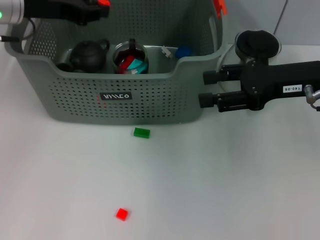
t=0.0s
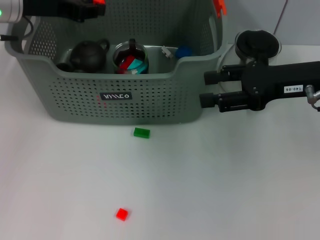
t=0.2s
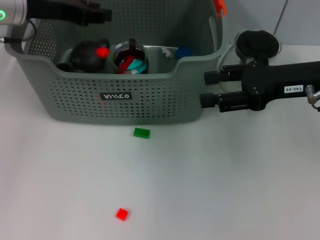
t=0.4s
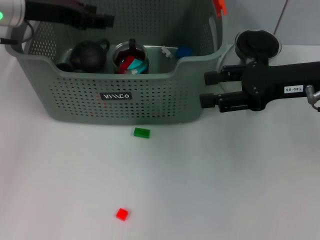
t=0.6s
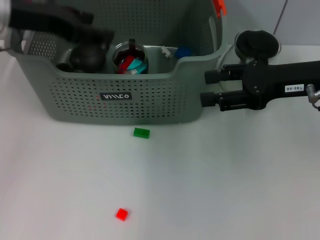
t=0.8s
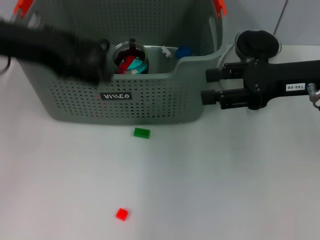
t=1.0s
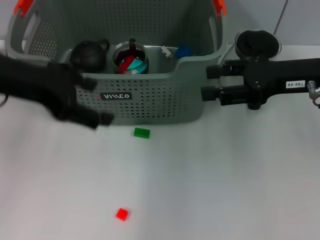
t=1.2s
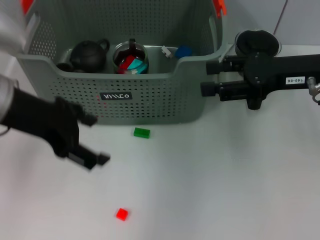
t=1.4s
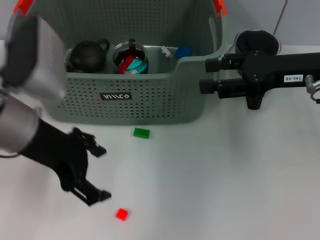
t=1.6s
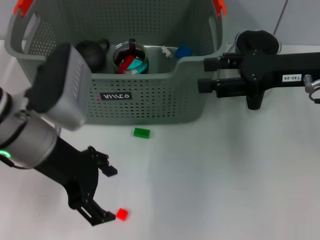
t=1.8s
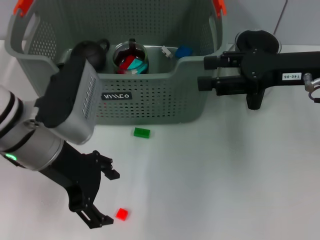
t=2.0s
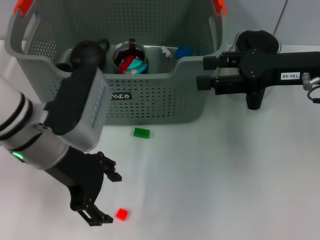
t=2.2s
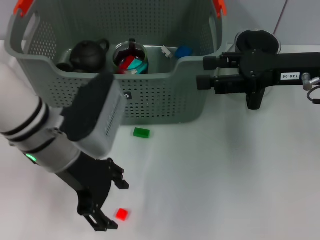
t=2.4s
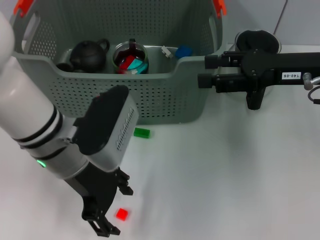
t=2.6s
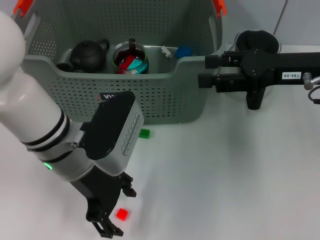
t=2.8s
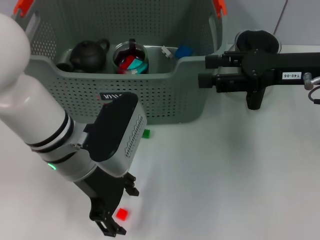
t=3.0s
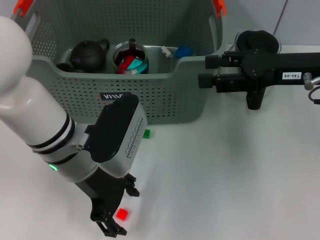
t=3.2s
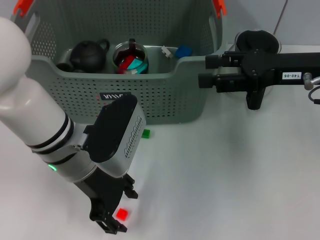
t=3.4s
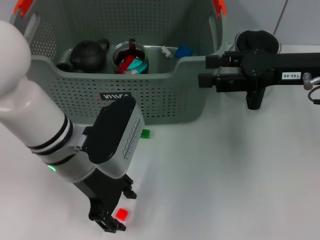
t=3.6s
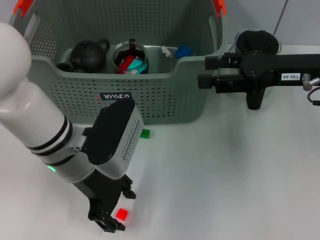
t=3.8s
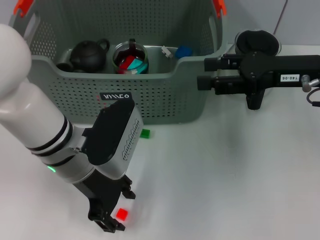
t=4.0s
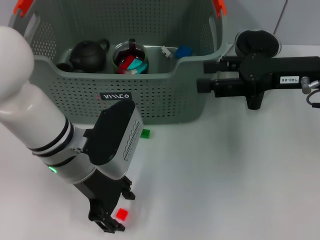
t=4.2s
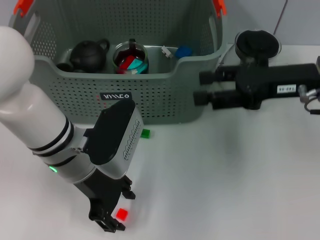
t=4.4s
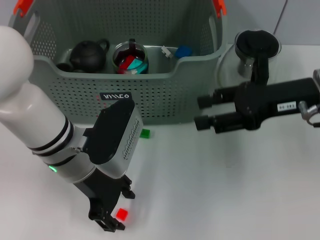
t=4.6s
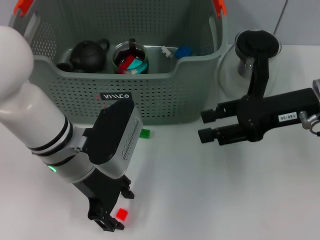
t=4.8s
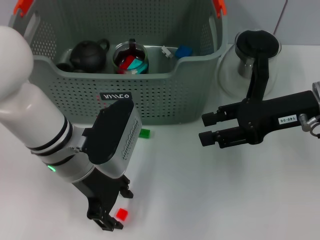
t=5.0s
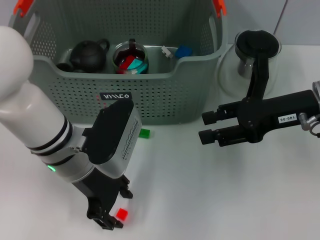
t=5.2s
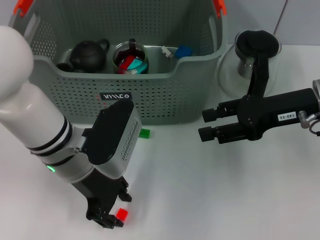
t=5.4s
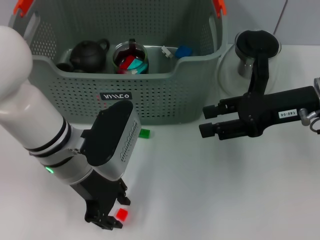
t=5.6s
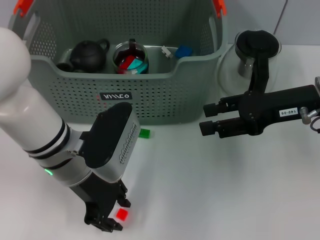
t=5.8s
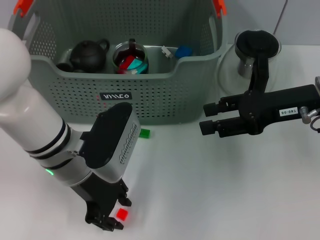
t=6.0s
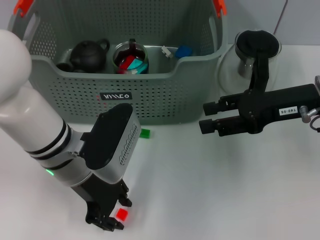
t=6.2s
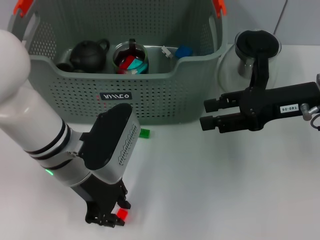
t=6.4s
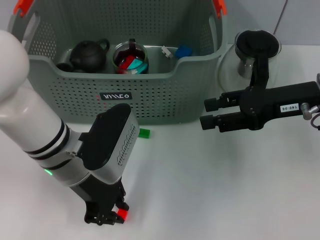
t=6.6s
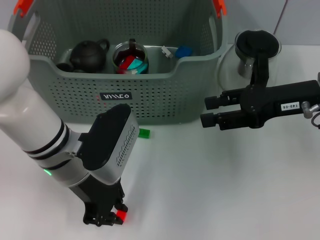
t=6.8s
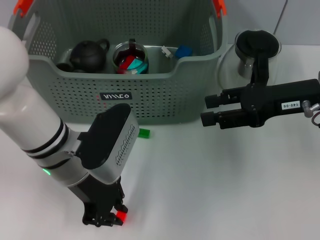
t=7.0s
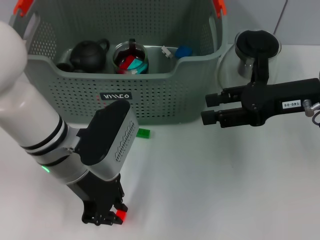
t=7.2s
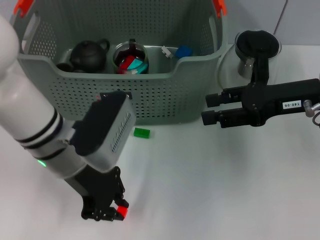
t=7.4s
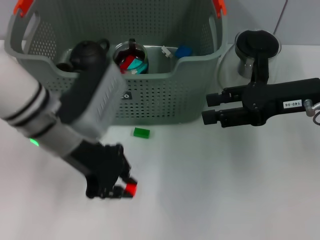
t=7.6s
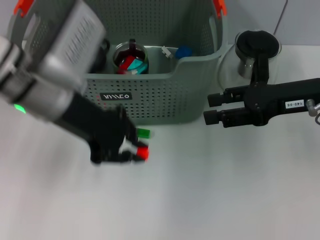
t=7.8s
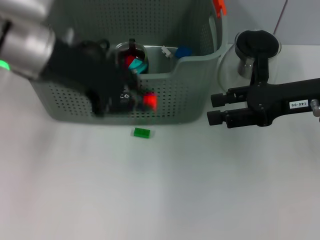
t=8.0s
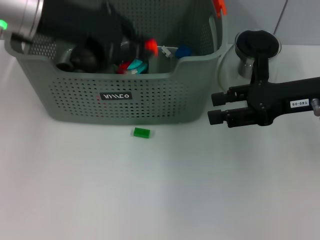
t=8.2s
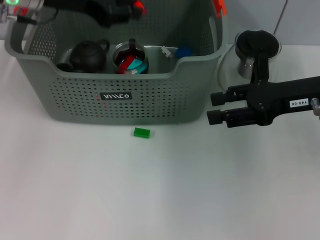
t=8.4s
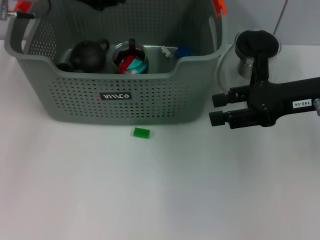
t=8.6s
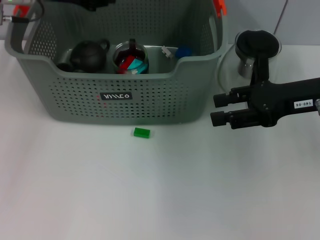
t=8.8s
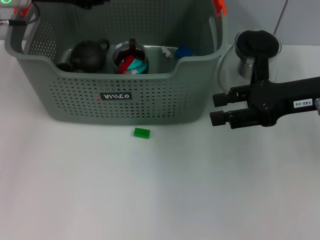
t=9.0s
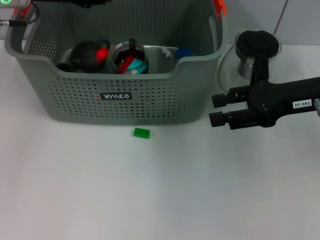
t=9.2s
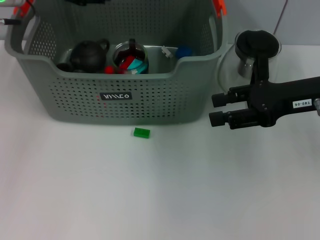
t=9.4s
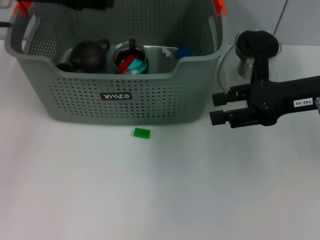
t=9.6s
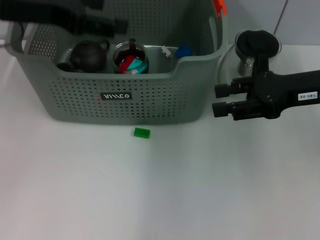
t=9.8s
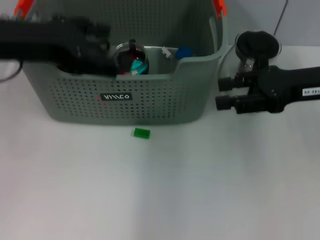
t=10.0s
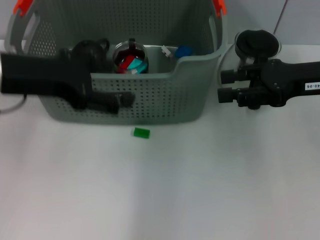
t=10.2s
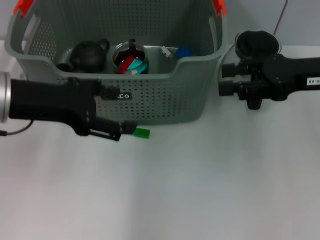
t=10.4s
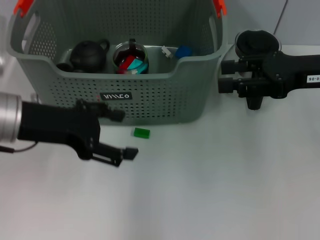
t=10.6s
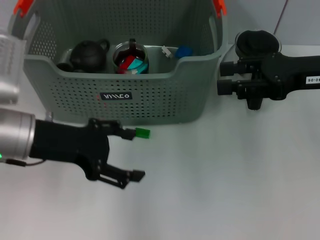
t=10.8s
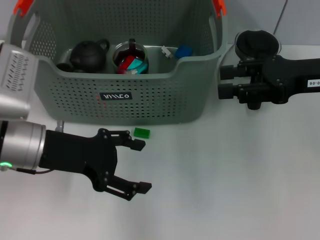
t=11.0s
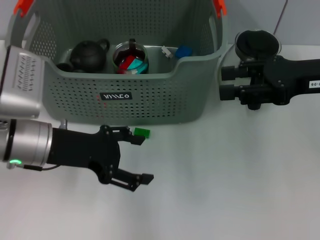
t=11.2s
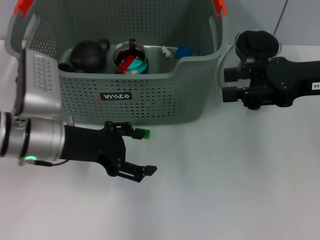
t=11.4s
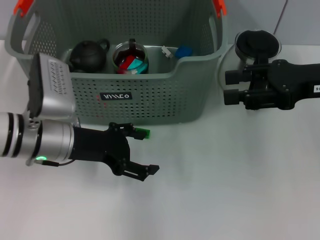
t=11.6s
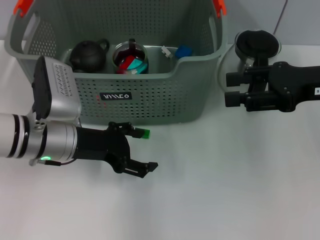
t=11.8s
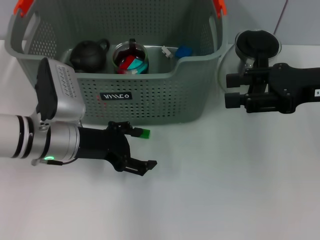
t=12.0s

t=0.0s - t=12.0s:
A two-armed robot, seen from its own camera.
Task of the whole recording: pick up the teacup on the table and place it into the storage bin, pick up the block on the table and place it into the storage bin.
Step, t=0.8s - t=7.2s: Grasp the orange block with left gripper.
Step, t=7.6s - t=9.6s: Place the orange block in the storage box with left gripper.
t=0.0s - t=1.6s: The left gripper moves backward, approximately 15 cm, and opens its fingers.
t=1.6s - t=3.0s: The left gripper heads downward and to the right, covering approximately 10 cm.
t=3.0s - t=6.0s: The grippers make only small movements.
t=6.0s - t=7.6s: The left gripper ends up about 5 cm from where it was.
t=7.6s - t=9.0s: The left gripper moves forward, to the left and upward, some 15 cm.
t=9.0s - t=10.4s: The left gripper is displaced backward by approximately 15 cm, and opens up.
t=10.4s - t=12.0s: The left gripper is displaced downward by approximately 10 cm.

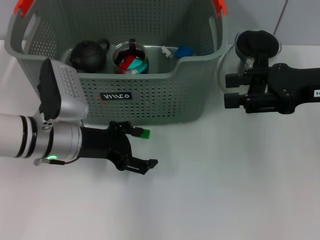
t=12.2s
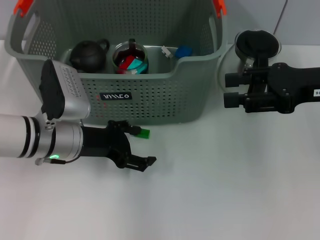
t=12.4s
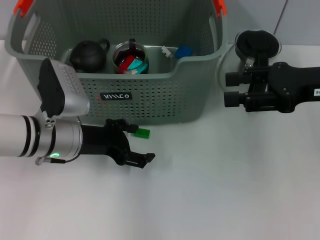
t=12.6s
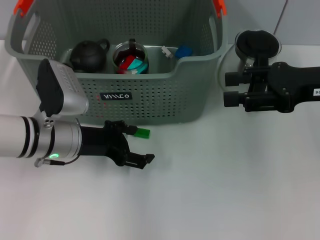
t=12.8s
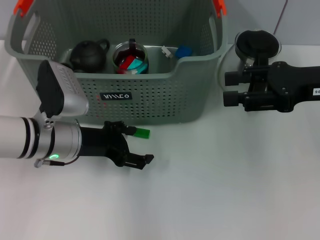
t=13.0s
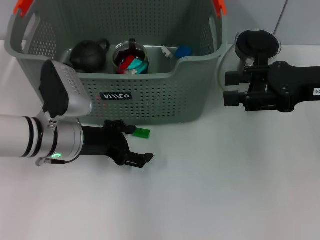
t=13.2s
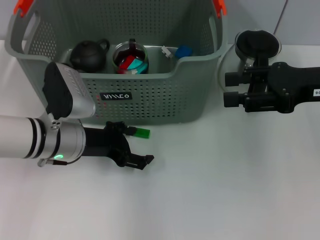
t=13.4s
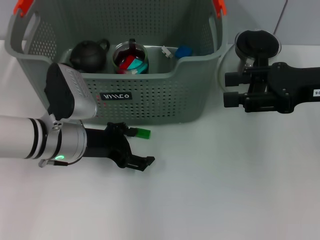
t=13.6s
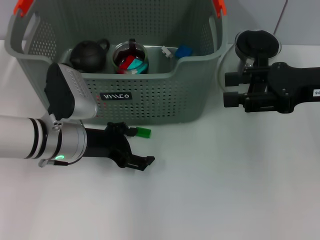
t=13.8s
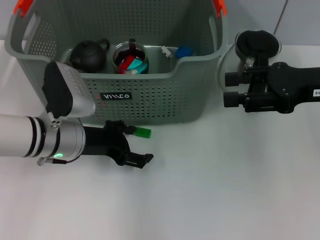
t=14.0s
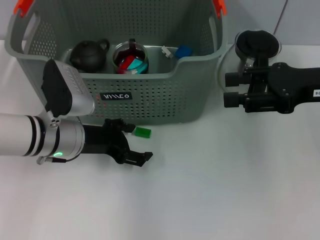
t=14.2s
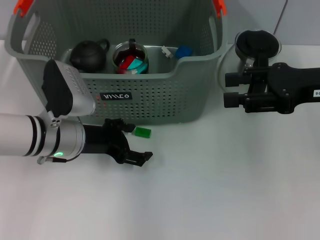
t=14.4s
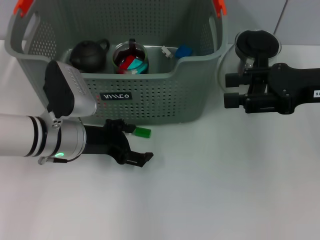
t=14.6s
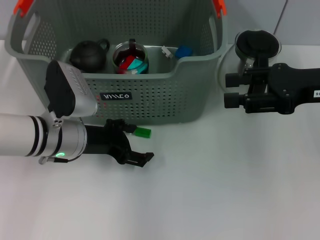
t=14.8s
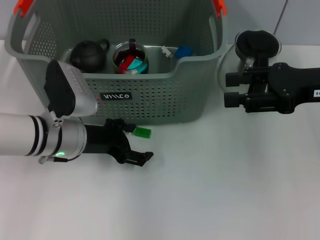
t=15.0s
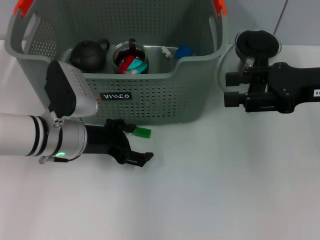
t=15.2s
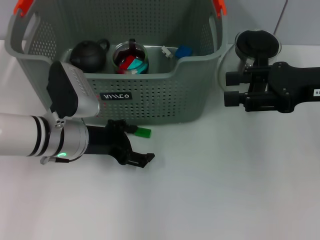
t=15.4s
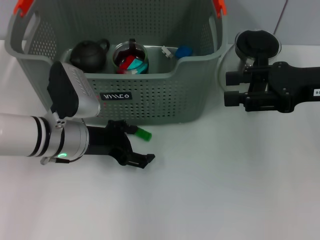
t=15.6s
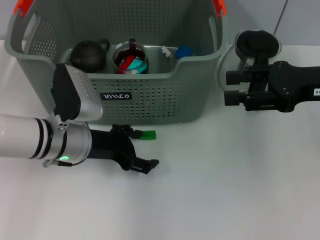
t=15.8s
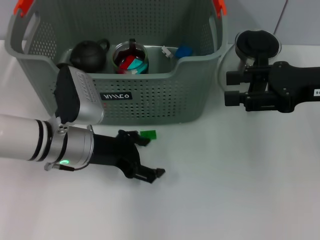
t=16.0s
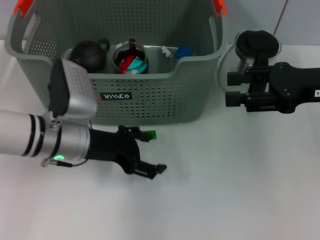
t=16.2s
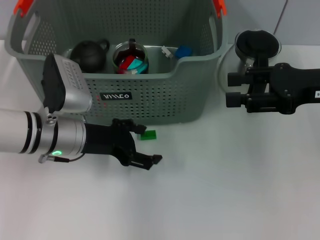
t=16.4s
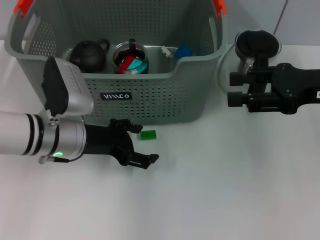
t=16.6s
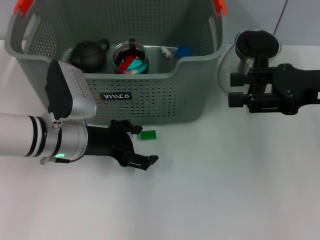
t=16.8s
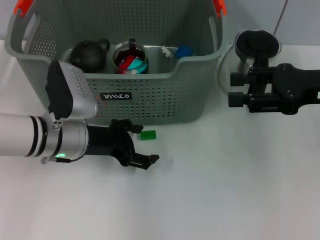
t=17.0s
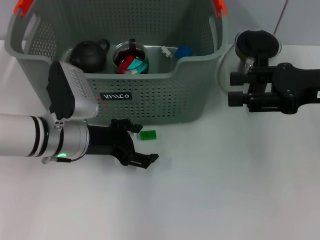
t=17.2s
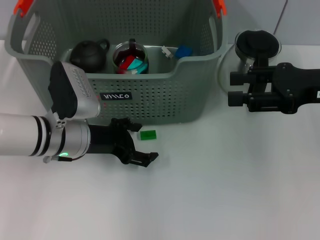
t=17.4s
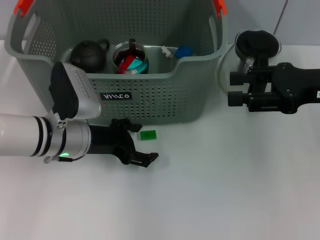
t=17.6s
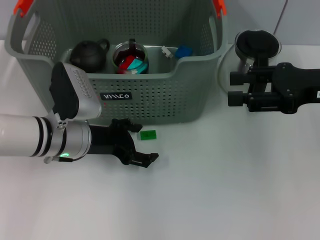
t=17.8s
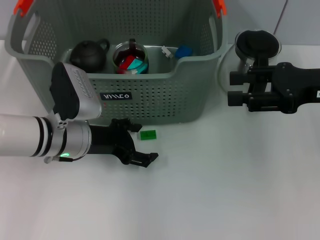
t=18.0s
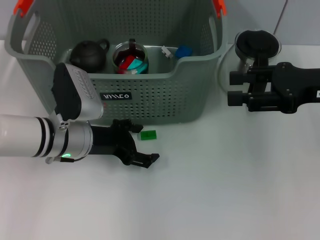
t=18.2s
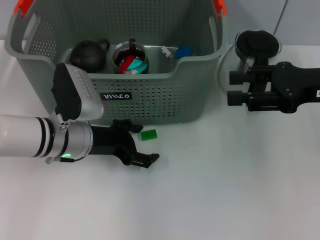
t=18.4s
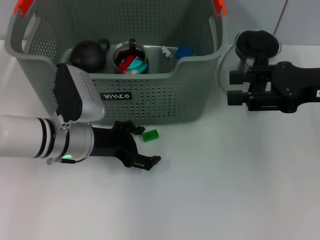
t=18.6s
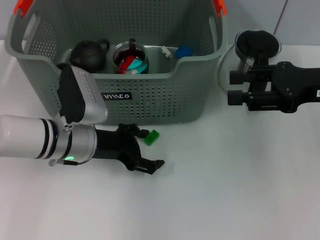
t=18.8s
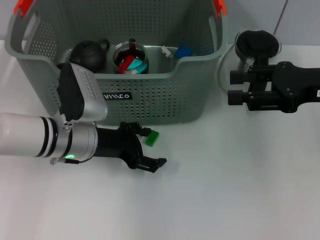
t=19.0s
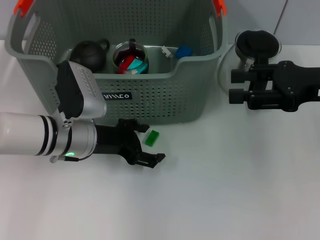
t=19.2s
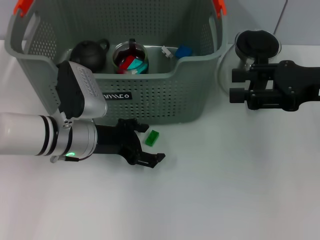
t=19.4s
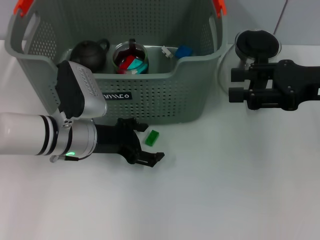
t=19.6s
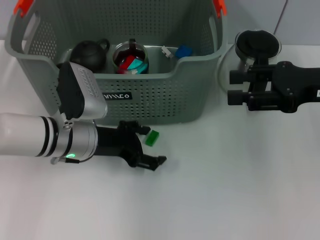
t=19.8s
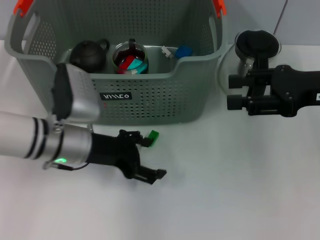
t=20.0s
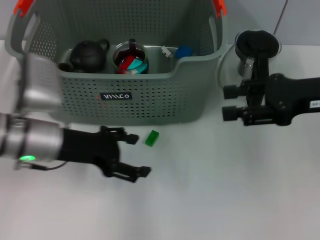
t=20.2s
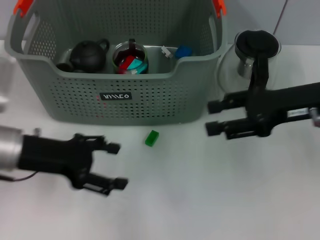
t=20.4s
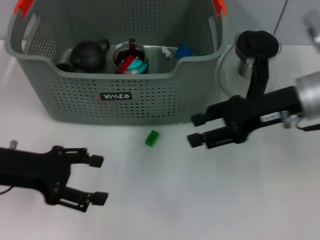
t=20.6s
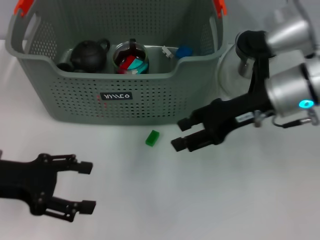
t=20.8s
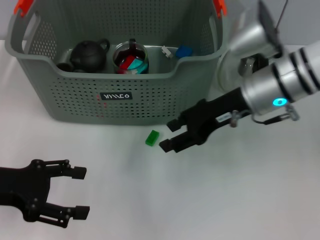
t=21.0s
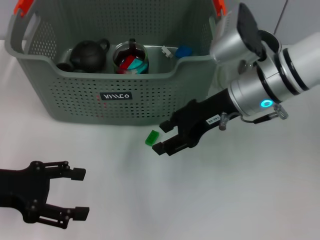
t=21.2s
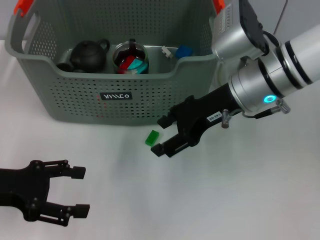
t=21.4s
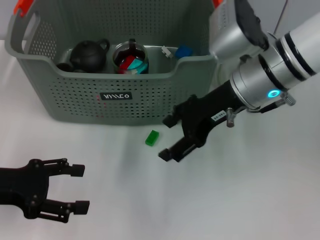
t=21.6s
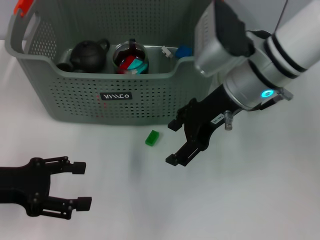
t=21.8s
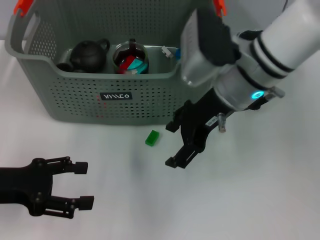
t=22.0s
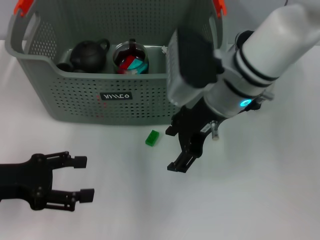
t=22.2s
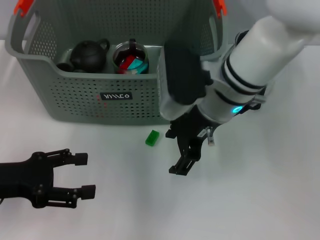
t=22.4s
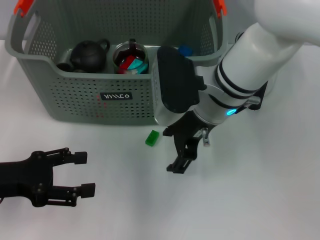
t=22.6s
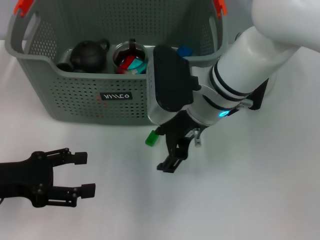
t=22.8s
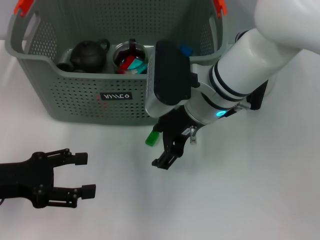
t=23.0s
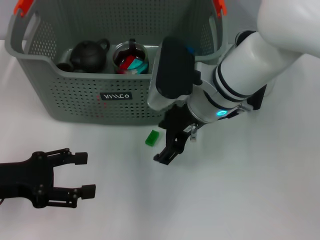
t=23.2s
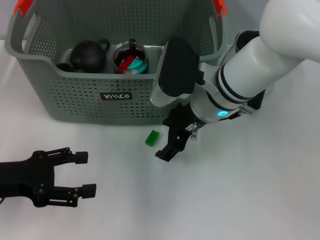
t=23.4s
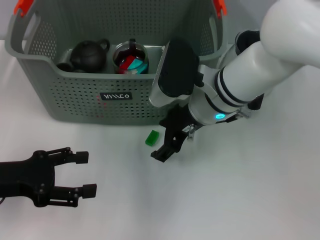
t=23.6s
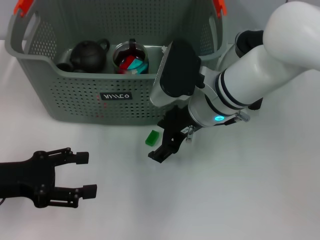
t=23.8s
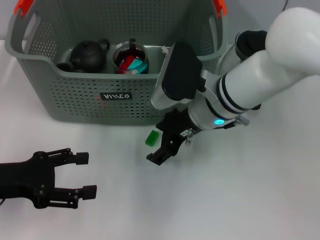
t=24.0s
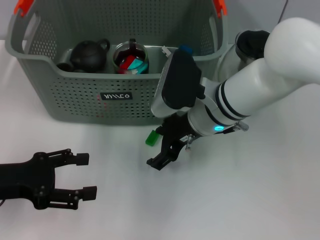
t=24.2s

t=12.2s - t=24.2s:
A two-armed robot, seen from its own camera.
Task of the whole recording: pick up the teacup on the table and place it into the storage bin, pick up the block on the table and place it into the storage bin.
t=12.2s - t=13.8s: The grippers stay close to where they were, moving slightly.
t=13.8s - t=15.2s: The two grippers keep their place.
t=15.2s - t=18.2s: The grippers make only small movements.
t=18.2s - t=19.8s: Both grippers stay put.
t=19.8s - t=21.2s: The right gripper is displaced to the left by some 15 cm, while the left gripper shifts roughly 15 cm to the left and backward.
t=21.2s - t=22.6s: The right gripper moves to the left, roughly 5 cm.
